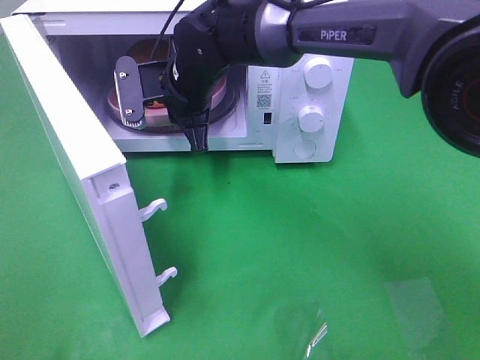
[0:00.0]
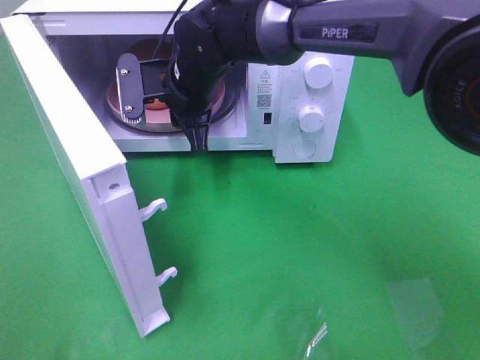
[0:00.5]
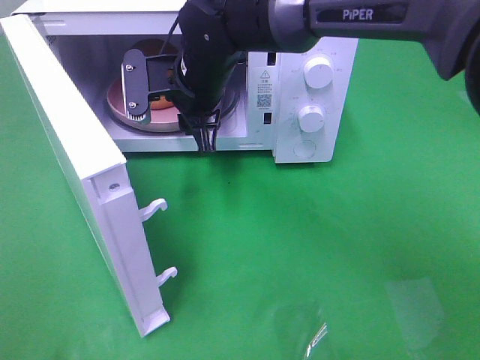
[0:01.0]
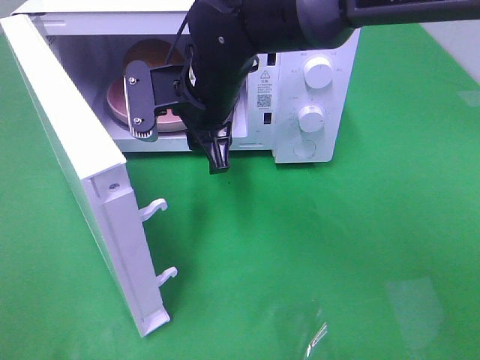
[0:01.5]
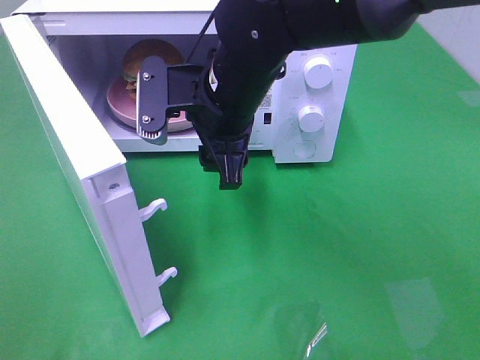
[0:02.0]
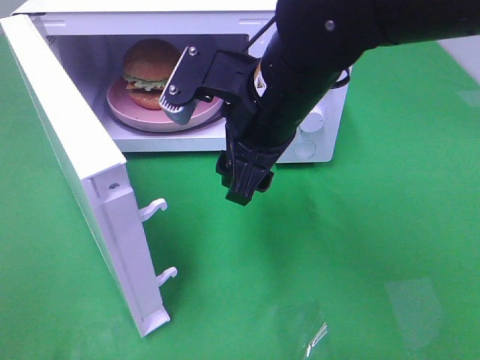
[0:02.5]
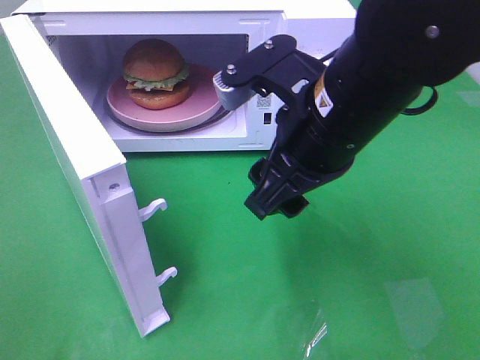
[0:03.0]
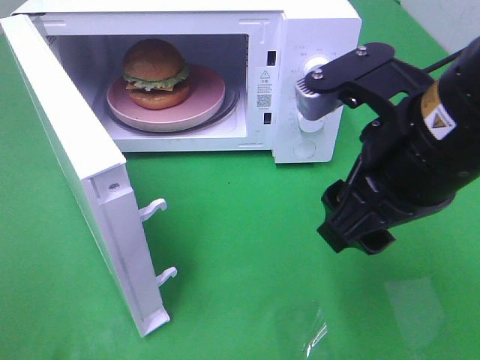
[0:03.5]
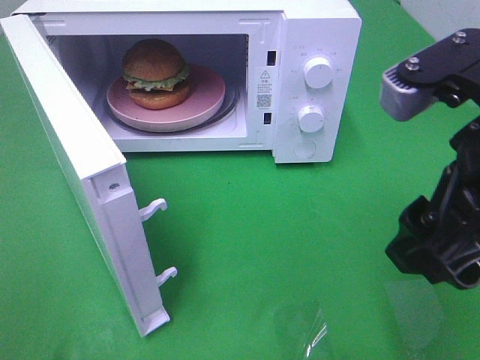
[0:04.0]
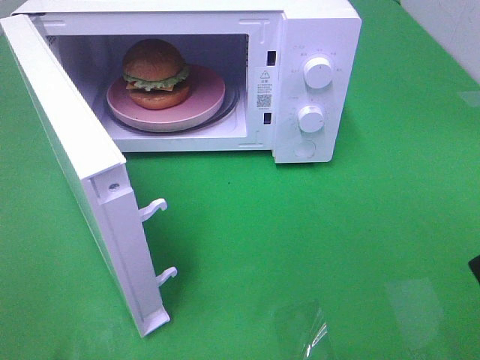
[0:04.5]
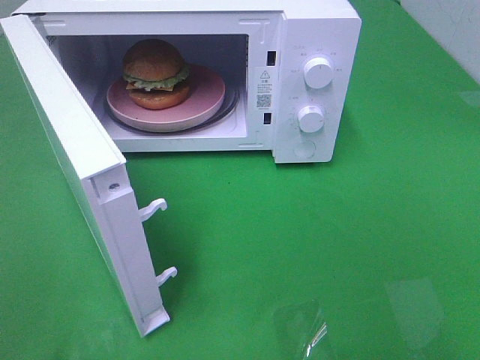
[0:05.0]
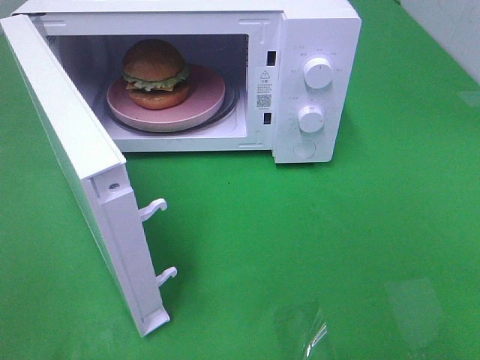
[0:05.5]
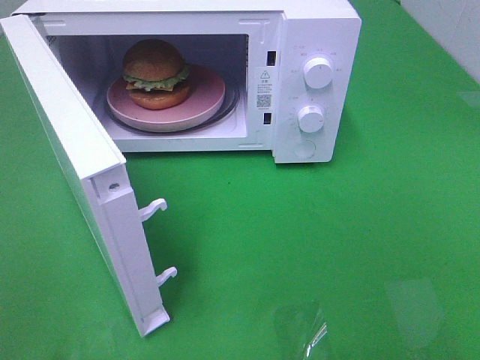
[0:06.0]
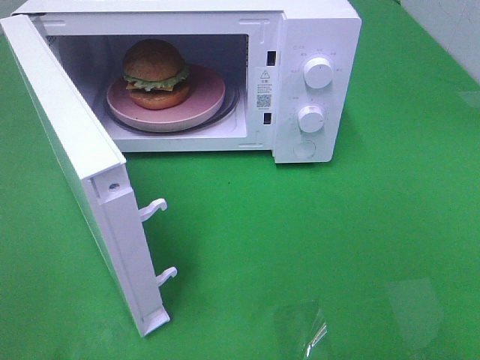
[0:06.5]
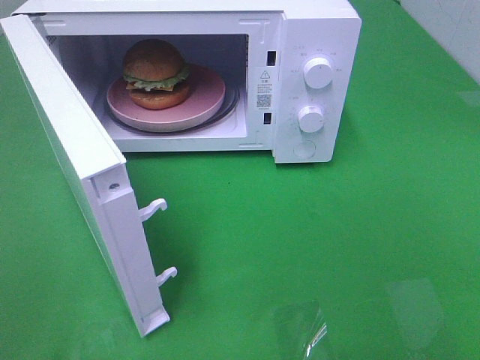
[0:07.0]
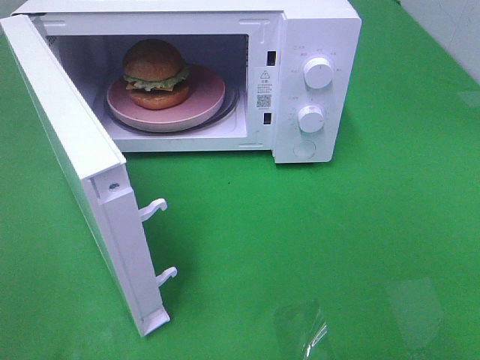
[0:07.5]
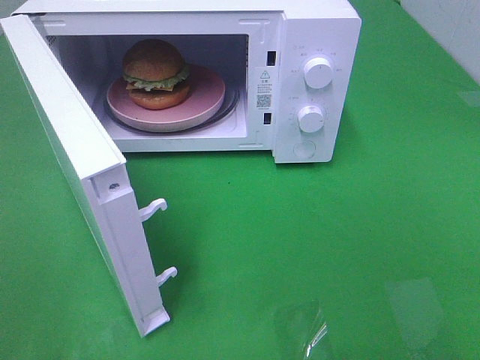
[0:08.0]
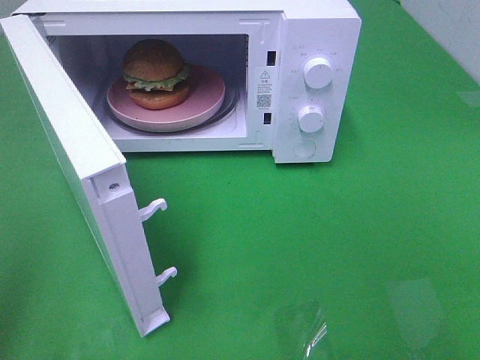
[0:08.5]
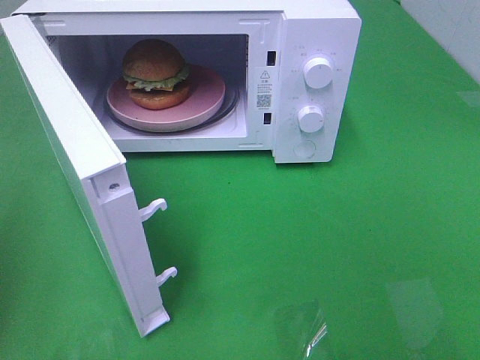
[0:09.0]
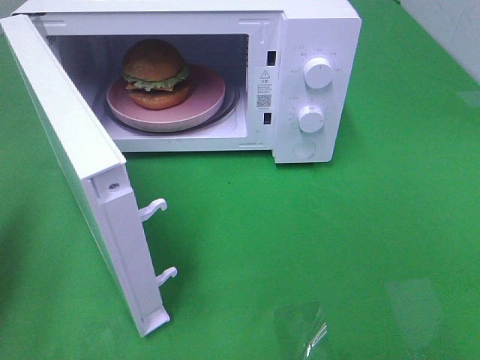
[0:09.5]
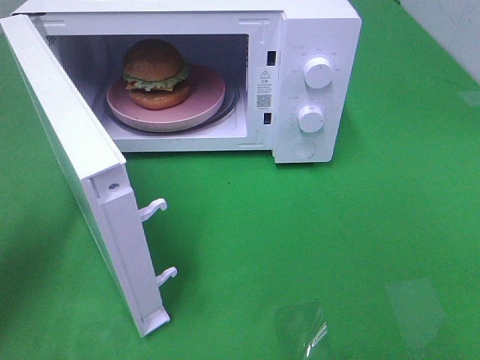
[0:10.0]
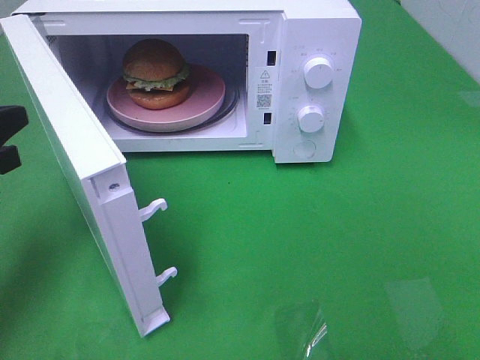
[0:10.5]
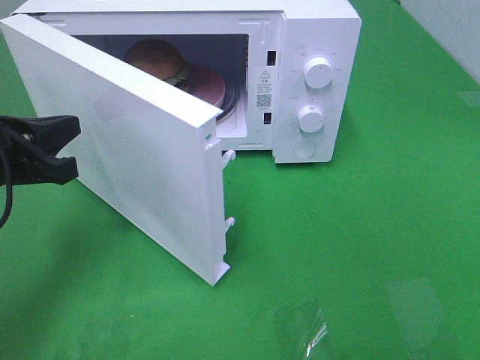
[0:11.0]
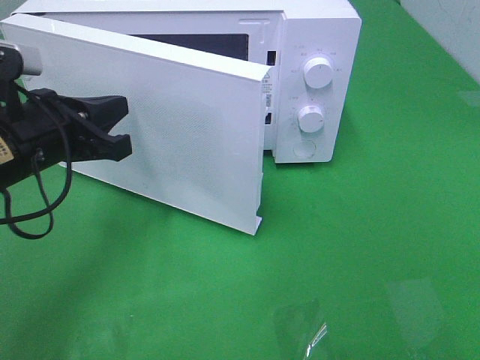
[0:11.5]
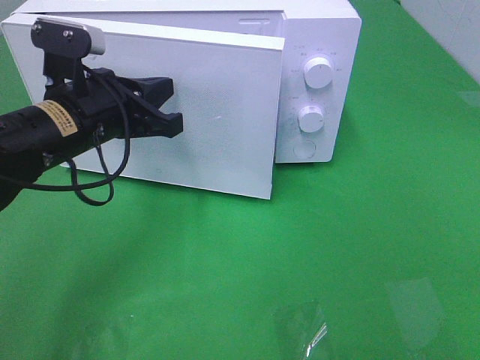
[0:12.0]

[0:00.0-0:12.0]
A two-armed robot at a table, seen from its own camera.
Task of the whole recording: Heat the burger.
0:00.0 to 0:02.0: The right gripper moves backward, some 10 cm, and opens its fingers.
0:02.0 to 0:04.0: The right gripper travels to the right, backward and upward by about 25 cm.
0:04.0 to 0:06.0: The right gripper shifts about 20 cm backward and to the right.
0:08.0 to 0:10.0: The left gripper is displaced forward and downward by about 25 cm, and closes its fingers.
0:10.0 to 0:12.0: The left gripper heads to the right and forward, covering about 15 cm.

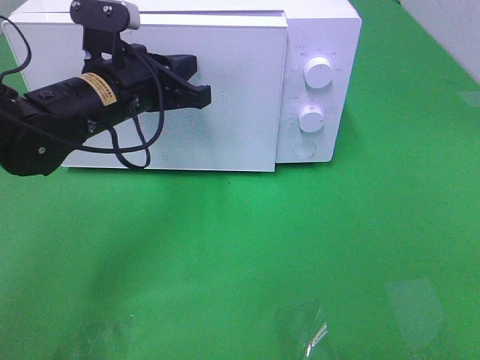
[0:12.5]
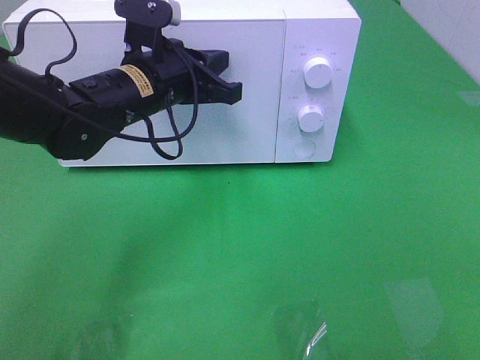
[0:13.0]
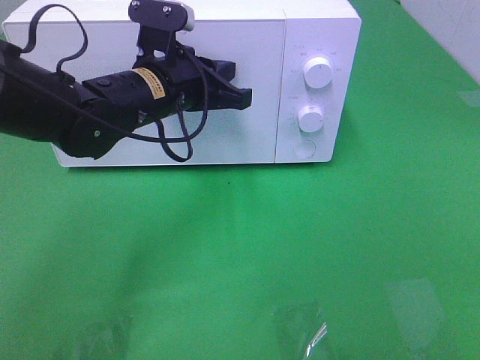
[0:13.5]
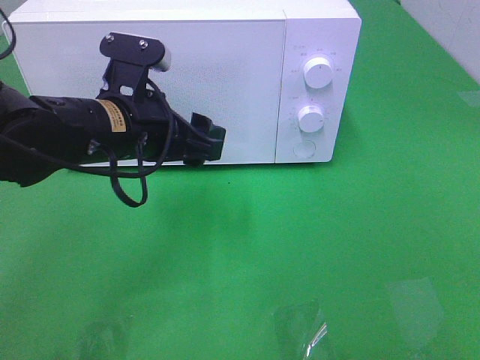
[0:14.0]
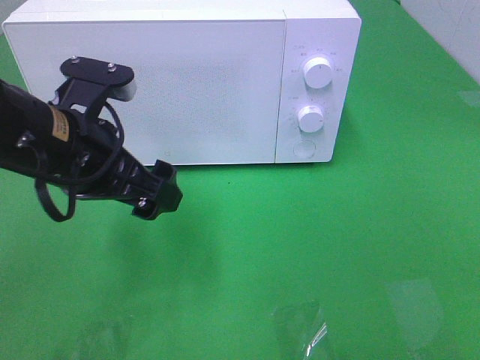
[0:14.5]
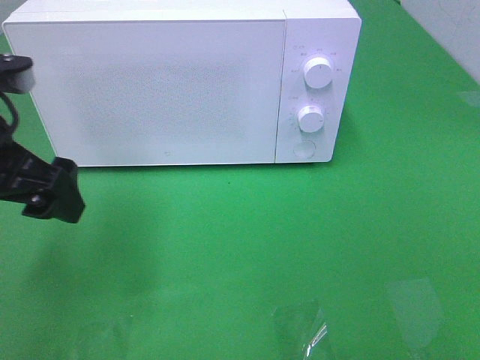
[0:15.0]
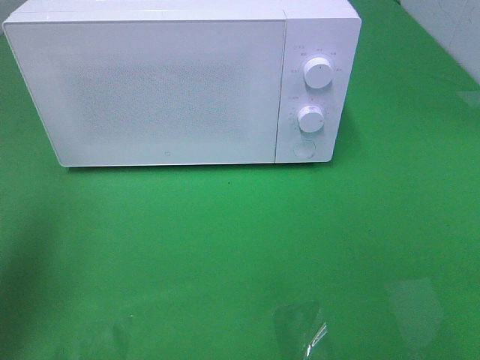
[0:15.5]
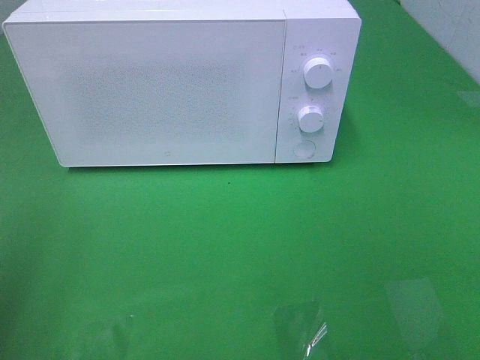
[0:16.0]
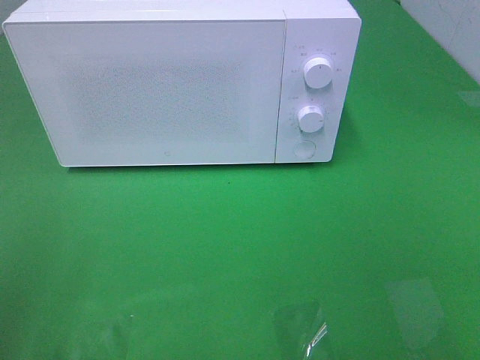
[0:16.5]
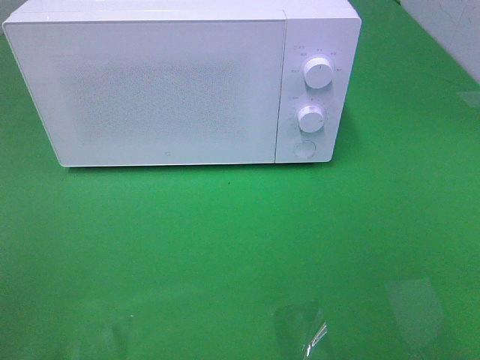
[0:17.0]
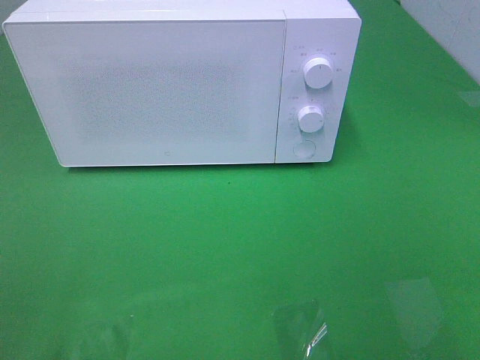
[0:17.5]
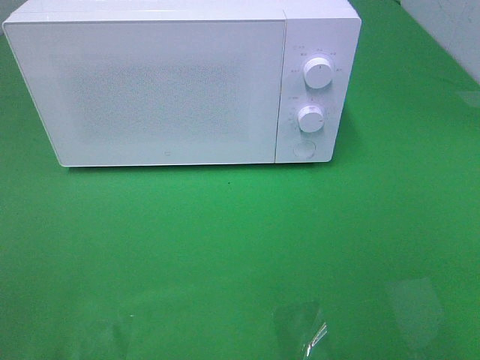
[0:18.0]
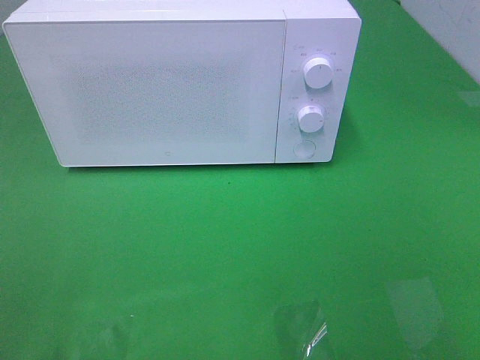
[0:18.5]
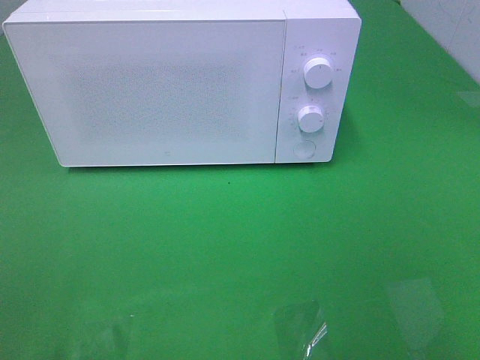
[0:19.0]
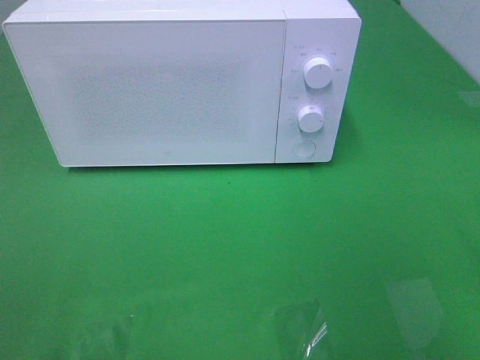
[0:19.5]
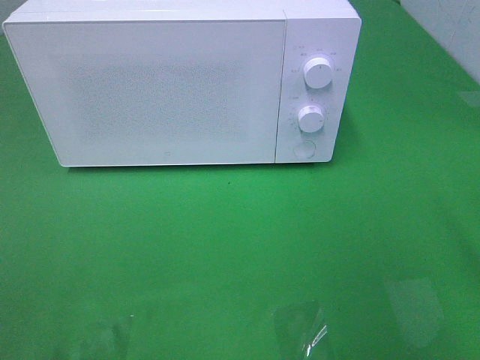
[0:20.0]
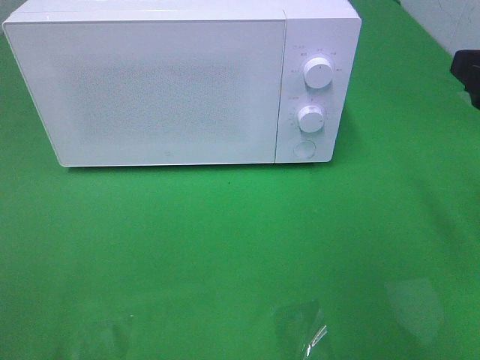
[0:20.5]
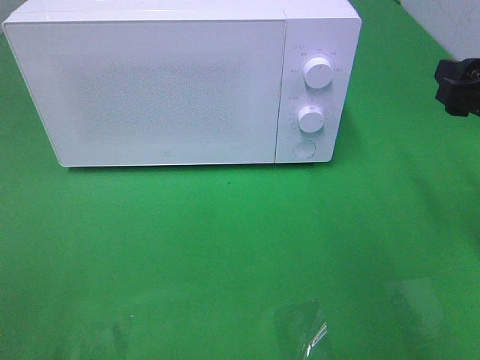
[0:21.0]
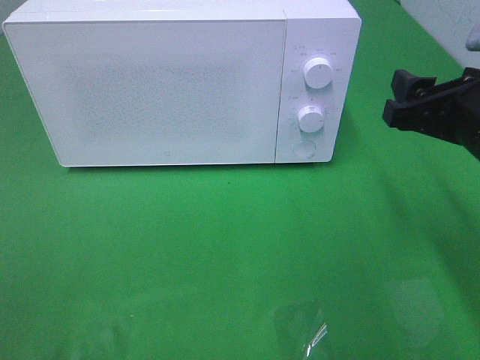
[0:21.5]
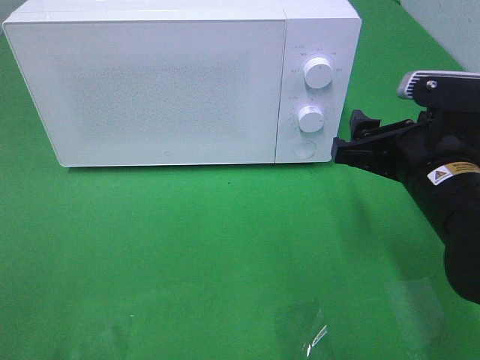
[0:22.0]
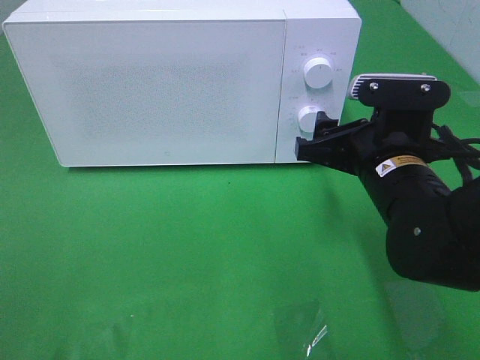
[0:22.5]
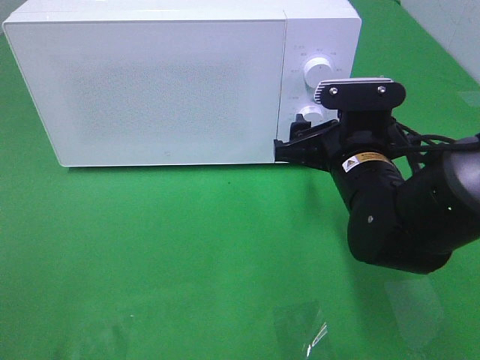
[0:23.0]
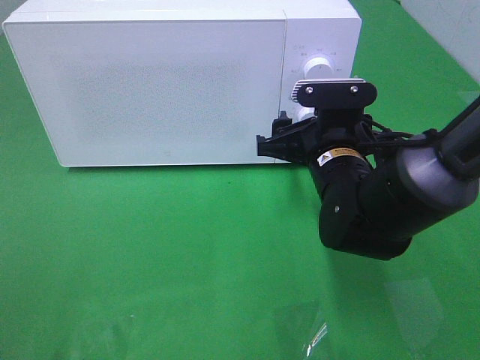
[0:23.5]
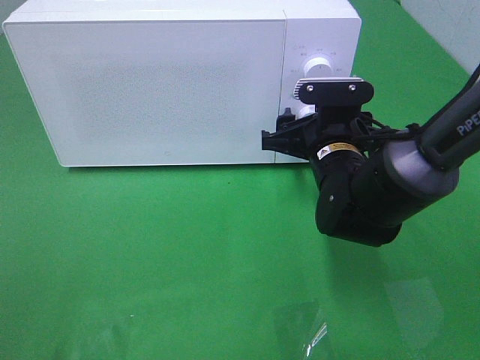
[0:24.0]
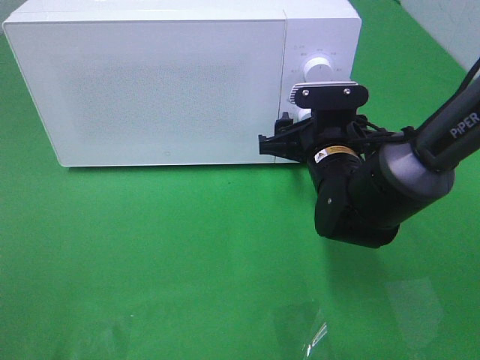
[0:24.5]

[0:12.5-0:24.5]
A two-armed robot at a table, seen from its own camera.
Task of the whole recording: Heat the burger.
0:12.5 to 0:14.5: The left gripper travels backward by some 10 cm, and opens up.
0:14.5 to 0:16.5: The left gripper moves backward, to the left and upward, some 25 cm.
0:18.5 to 0:20.5: The right gripper heads forward, covering approximately 20 cm.
0:20.5 to 0:22.5: The right gripper is displaced to the left, downward and forward by roughly 15 cm.
0:22.5 to 0:24.5: The right gripper moves forward, about 5 cm.

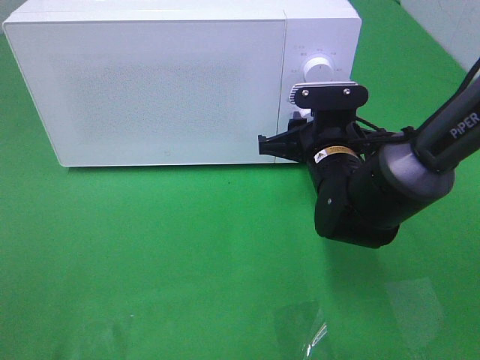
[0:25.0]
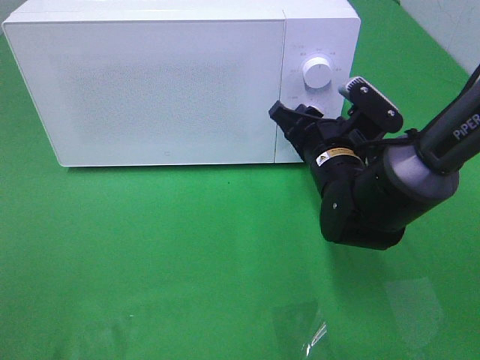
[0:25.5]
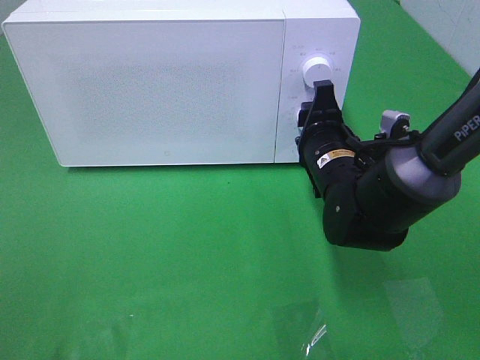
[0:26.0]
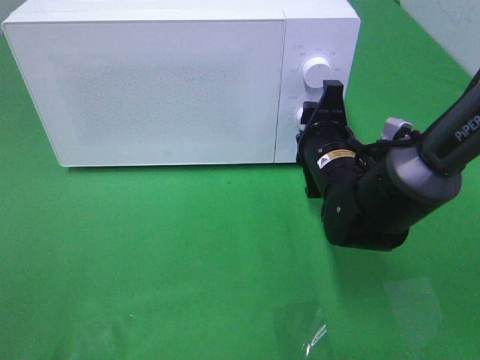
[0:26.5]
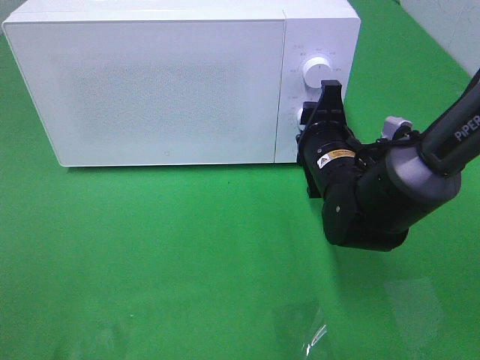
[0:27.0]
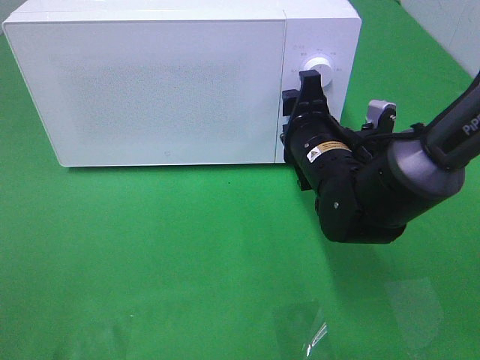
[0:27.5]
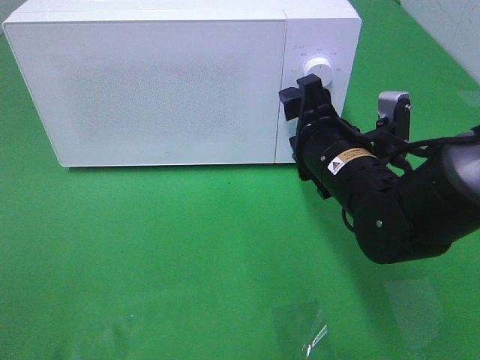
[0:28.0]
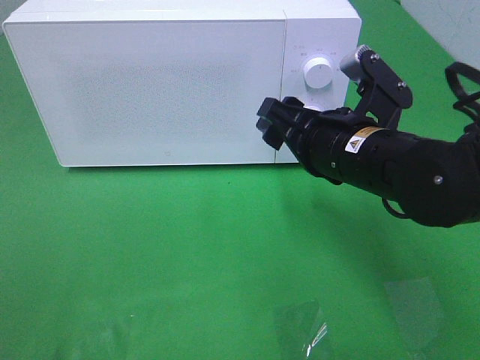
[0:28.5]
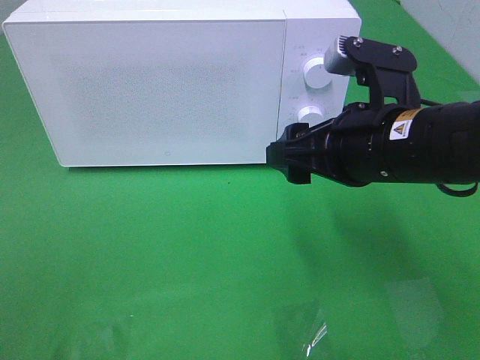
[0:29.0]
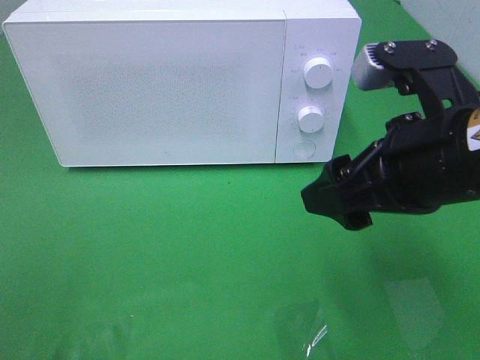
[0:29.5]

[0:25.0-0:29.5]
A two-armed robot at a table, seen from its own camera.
Task of the whole recording: Heat the burger.
Step, 0:25.0 to 0:27.5: Right hand: twist timer button.
0:27.0 to 0:29.5: The right gripper shifts about 20 cm backward and upward, and opens its fingers.
